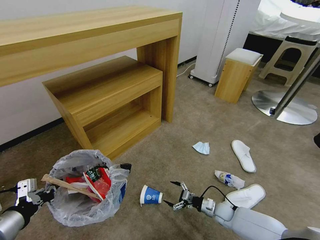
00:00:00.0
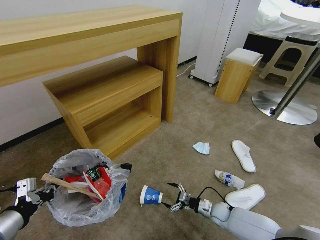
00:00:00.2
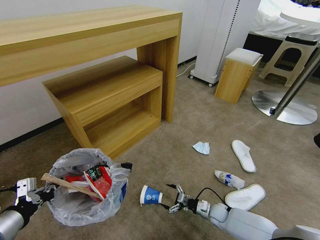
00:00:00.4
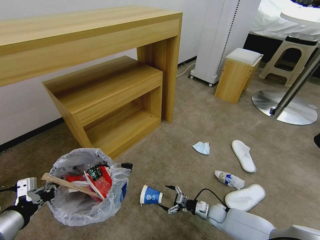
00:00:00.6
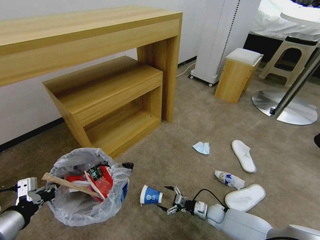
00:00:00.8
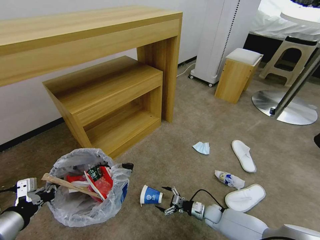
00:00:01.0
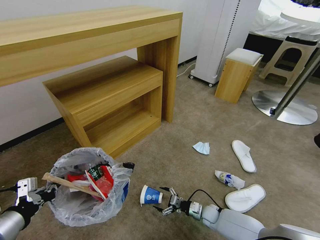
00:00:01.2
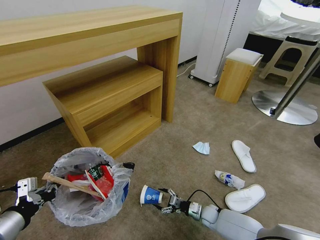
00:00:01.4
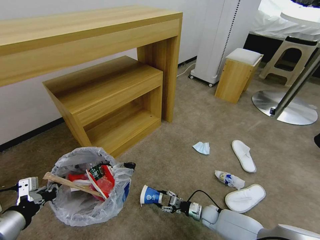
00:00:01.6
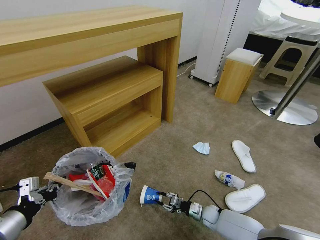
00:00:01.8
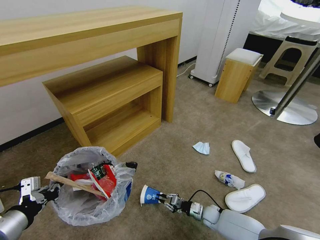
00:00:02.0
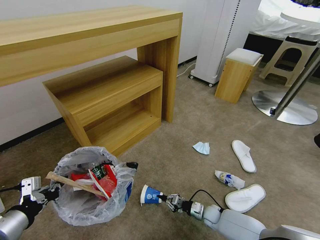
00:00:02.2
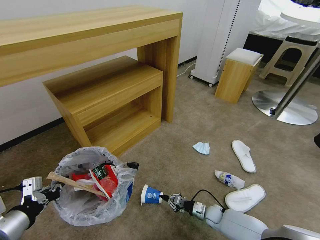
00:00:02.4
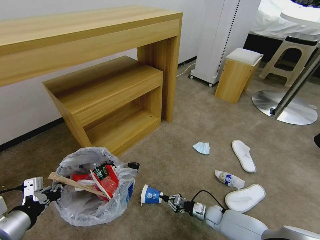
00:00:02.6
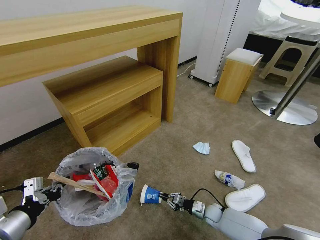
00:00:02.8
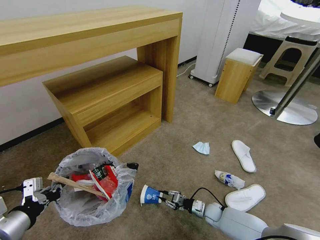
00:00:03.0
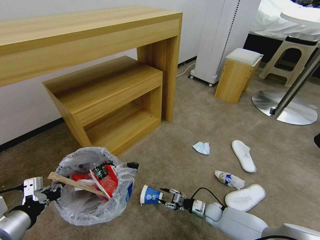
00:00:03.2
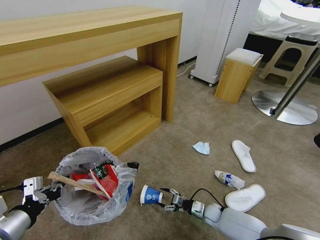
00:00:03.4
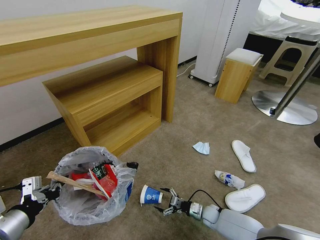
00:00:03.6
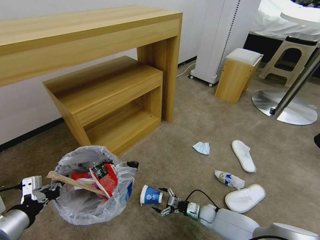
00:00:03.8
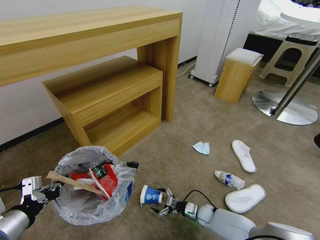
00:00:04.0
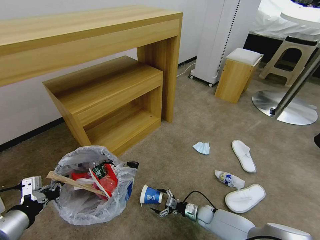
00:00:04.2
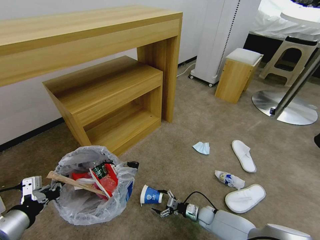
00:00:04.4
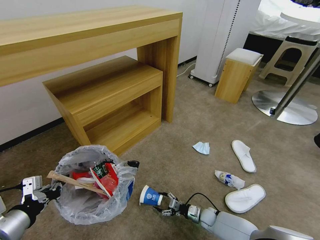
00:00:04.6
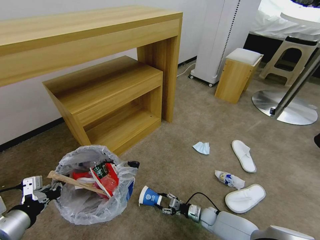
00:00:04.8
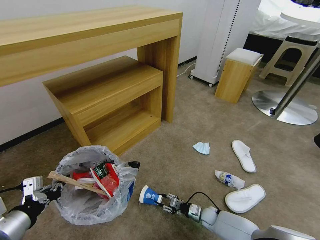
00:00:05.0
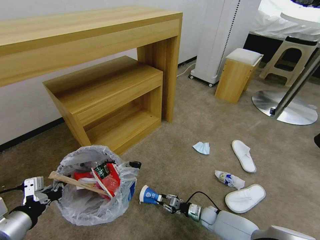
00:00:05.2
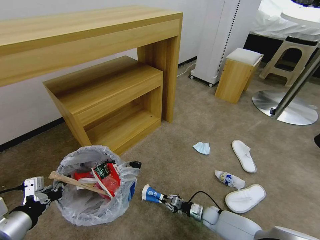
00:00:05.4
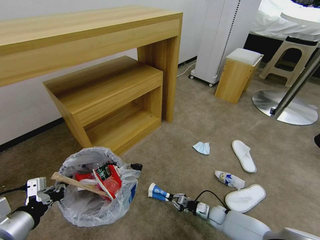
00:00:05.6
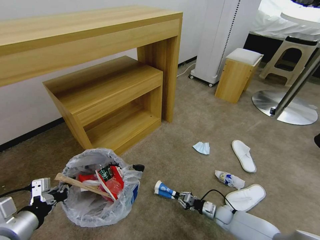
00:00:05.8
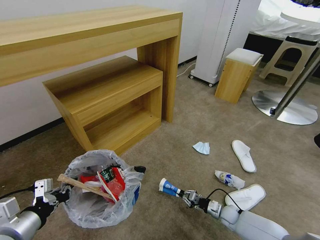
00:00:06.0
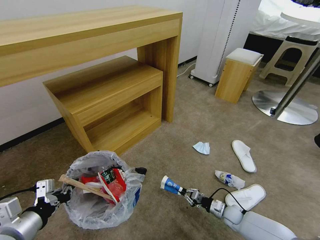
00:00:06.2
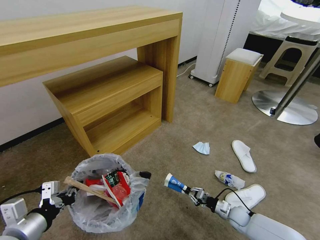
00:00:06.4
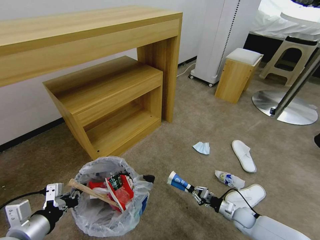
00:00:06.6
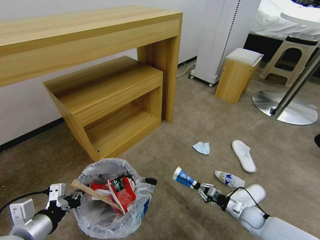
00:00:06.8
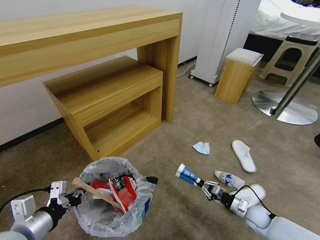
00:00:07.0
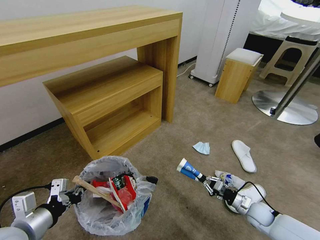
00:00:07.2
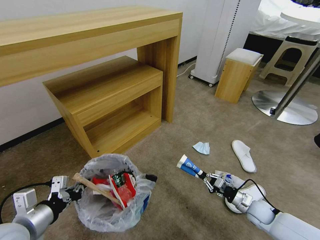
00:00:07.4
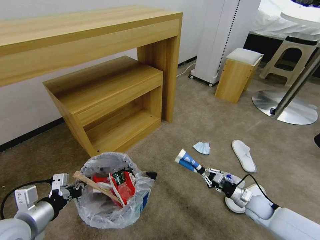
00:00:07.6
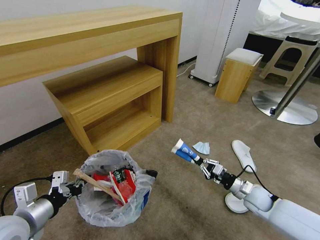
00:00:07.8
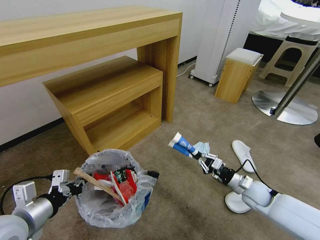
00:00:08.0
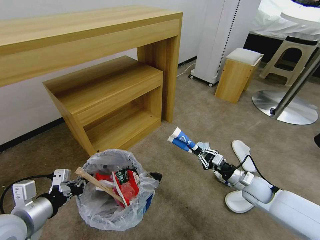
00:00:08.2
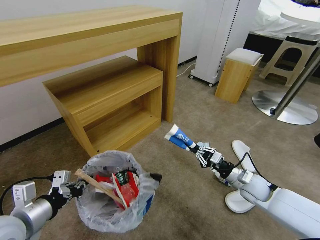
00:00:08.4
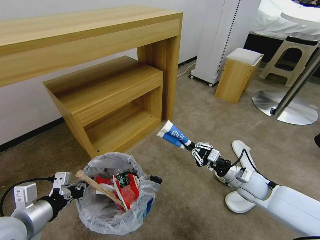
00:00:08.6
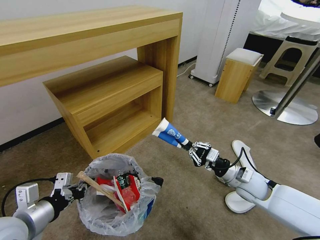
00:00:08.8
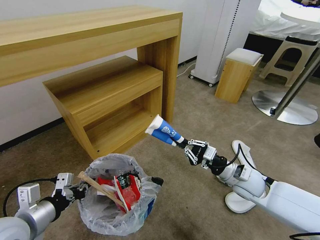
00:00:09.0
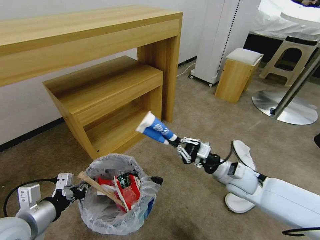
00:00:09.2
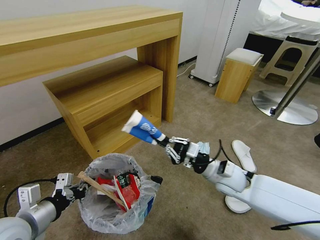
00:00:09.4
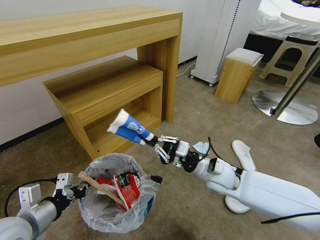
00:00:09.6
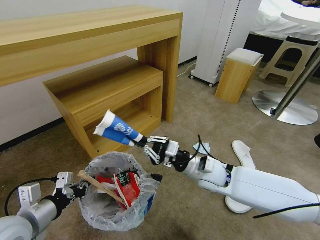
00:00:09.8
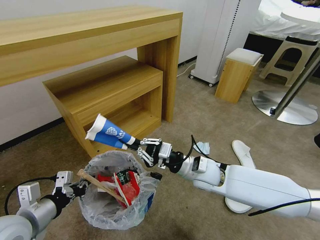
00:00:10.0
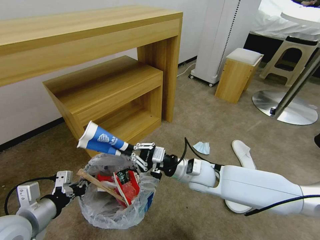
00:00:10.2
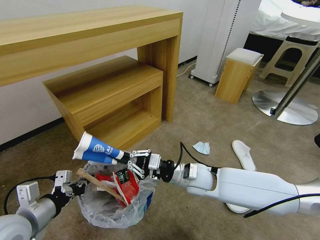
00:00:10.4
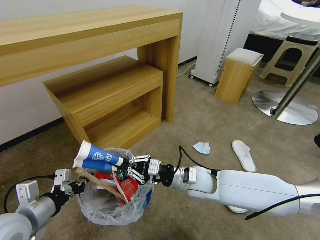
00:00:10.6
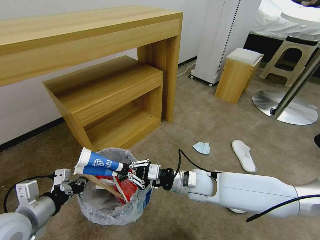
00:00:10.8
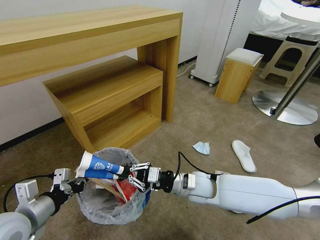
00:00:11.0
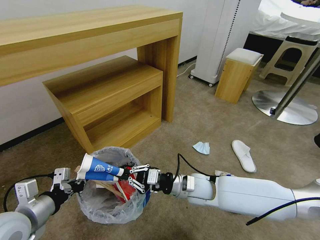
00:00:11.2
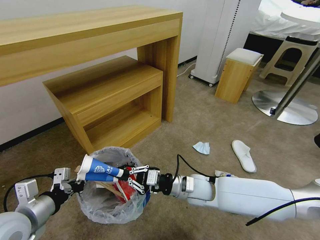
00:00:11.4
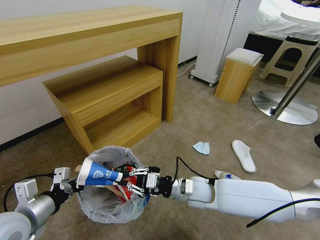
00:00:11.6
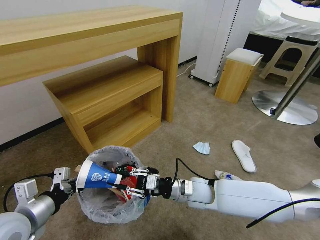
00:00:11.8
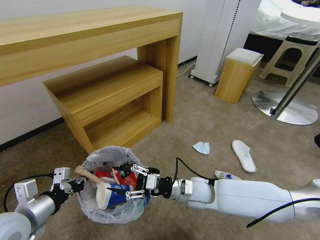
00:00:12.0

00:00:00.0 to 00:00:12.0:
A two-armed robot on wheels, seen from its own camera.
Task of the whole recording: Pick up the trash bin and place the garbage on the floor into it.
00:00:00.0 to 00:00:01.6: The right gripper shifts some 5 cm to the left, and closes.
00:00:01.6 to 00:00:03.0: The grippers stay close to where they were, moving slightly.
00:00:03.0 to 00:00:04.4: The right gripper opens its fingers.
00:00:04.4 to 00:00:06.0: The right gripper shifts some 10 cm to the right, and closes up.
00:00:06.0 to 00:00:07.6: The right gripper shifts roughly 15 cm upward and to the right.
00:00:07.6 to 00:00:09.0: The right gripper is displaced upward and to the left by approximately 20 cm.
00:00:09.0 to 00:00:10.4: The right gripper travels to the left by approximately 15 cm.
00:00:10.4 to 00:00:12.0: The right gripper goes roughly 5 cm downward, and opens up.

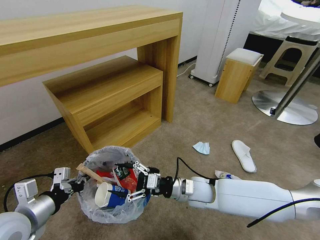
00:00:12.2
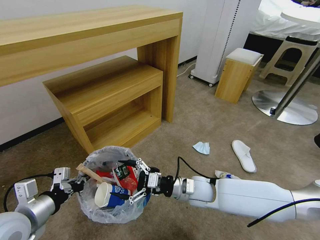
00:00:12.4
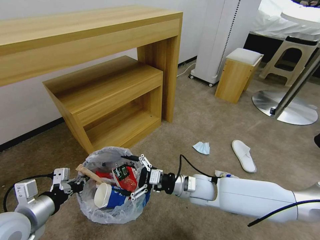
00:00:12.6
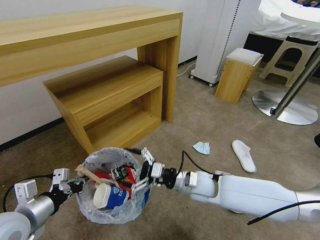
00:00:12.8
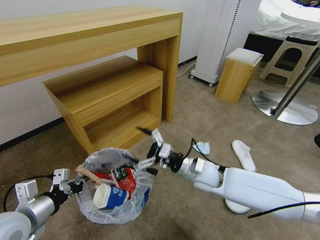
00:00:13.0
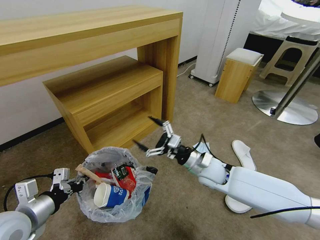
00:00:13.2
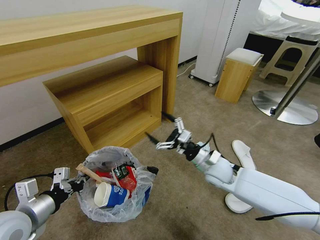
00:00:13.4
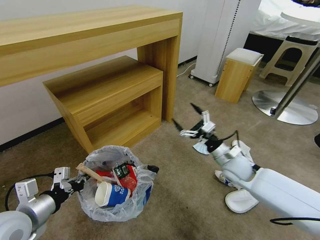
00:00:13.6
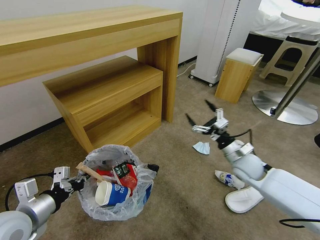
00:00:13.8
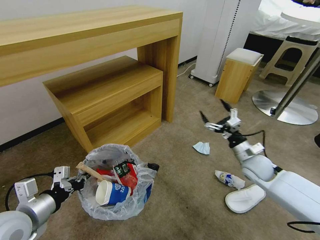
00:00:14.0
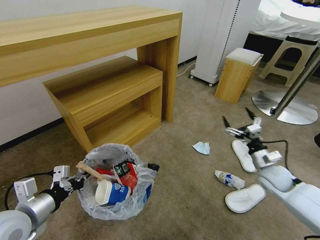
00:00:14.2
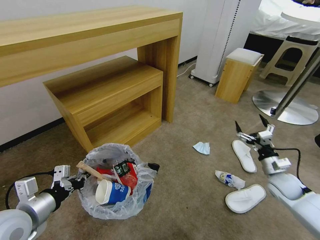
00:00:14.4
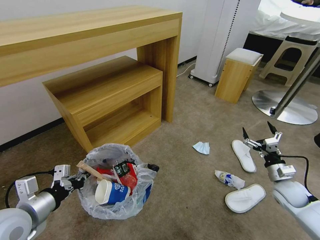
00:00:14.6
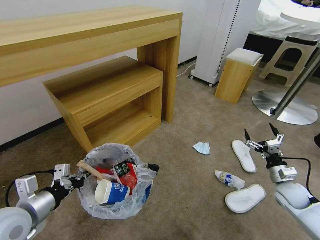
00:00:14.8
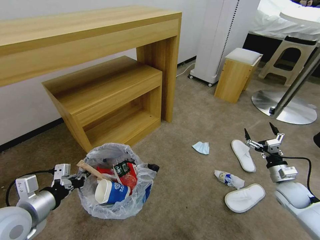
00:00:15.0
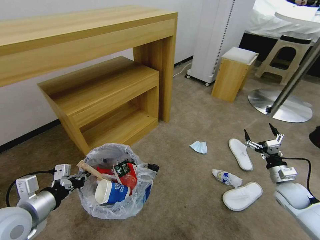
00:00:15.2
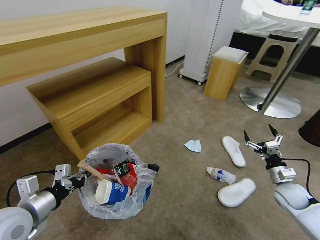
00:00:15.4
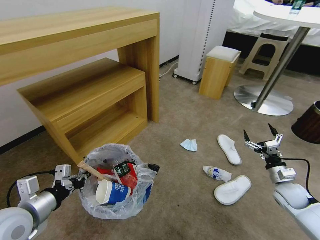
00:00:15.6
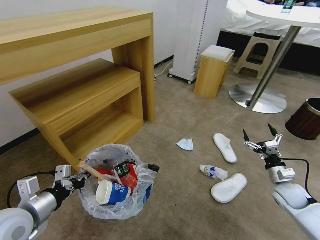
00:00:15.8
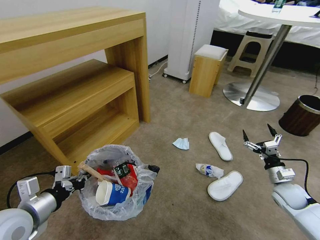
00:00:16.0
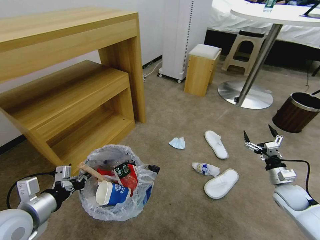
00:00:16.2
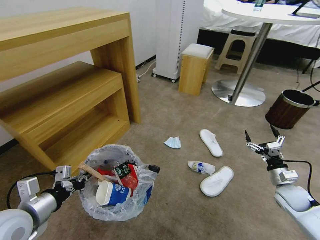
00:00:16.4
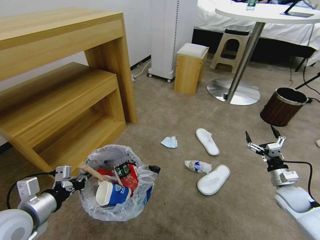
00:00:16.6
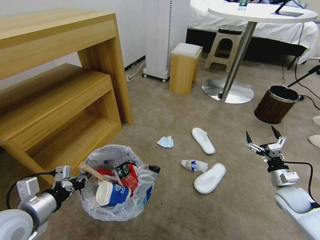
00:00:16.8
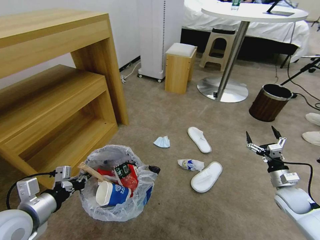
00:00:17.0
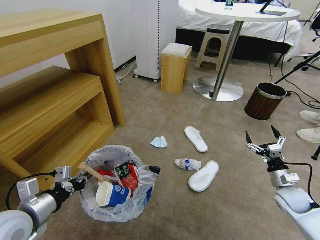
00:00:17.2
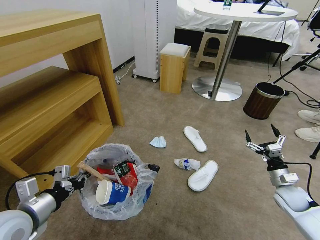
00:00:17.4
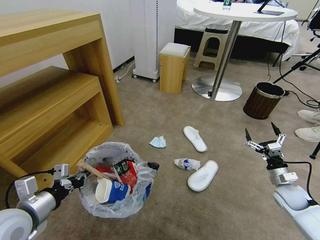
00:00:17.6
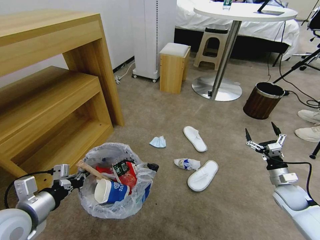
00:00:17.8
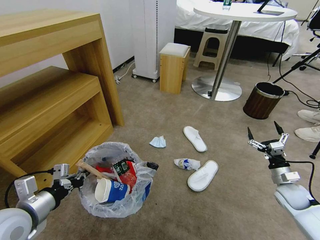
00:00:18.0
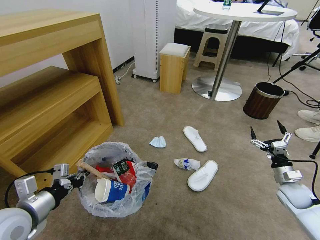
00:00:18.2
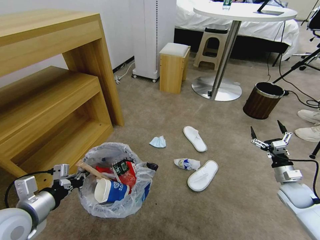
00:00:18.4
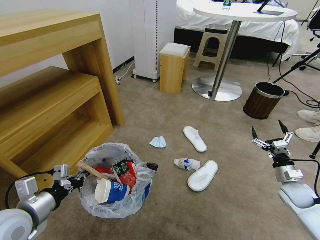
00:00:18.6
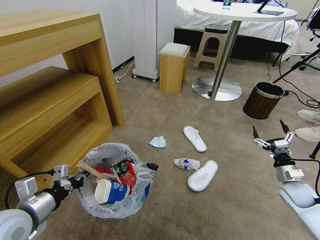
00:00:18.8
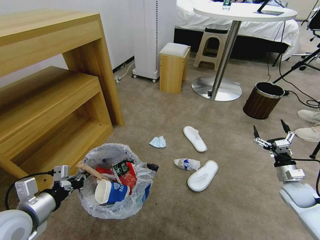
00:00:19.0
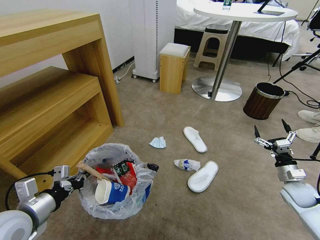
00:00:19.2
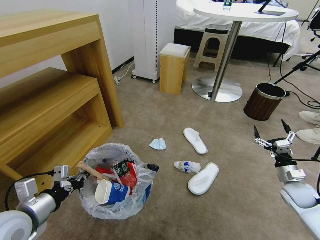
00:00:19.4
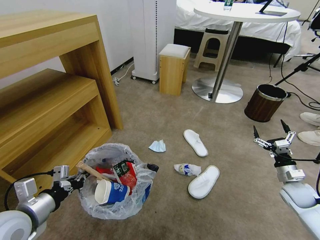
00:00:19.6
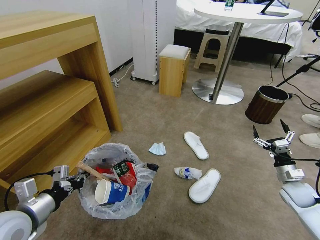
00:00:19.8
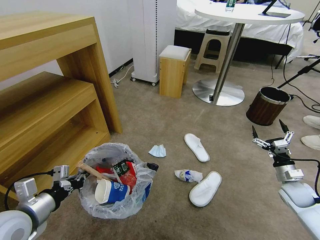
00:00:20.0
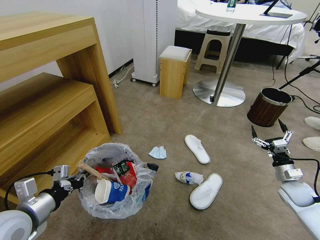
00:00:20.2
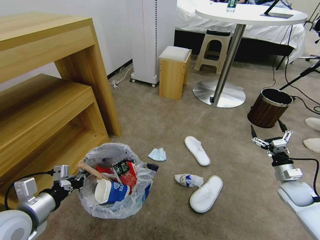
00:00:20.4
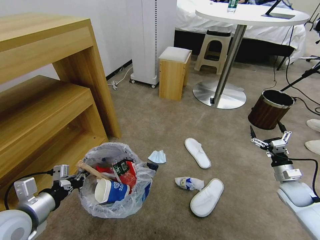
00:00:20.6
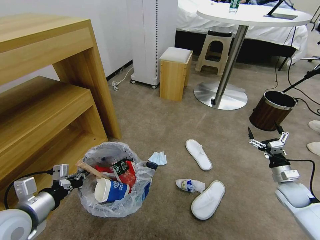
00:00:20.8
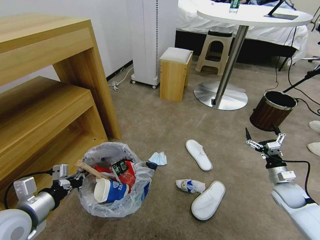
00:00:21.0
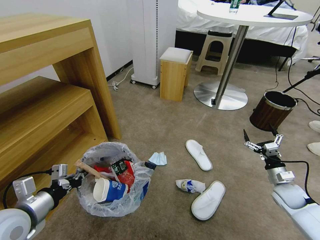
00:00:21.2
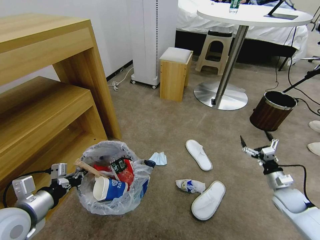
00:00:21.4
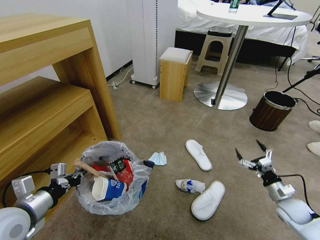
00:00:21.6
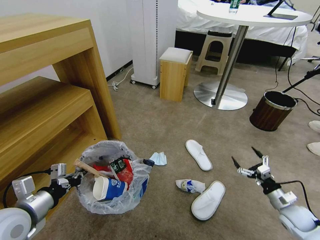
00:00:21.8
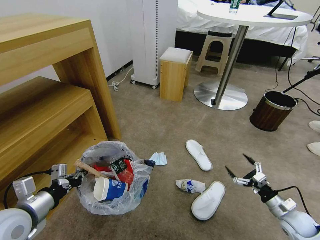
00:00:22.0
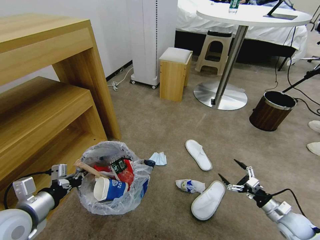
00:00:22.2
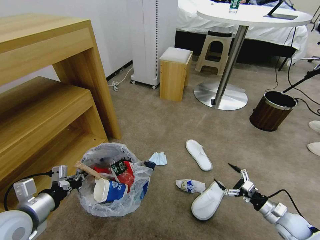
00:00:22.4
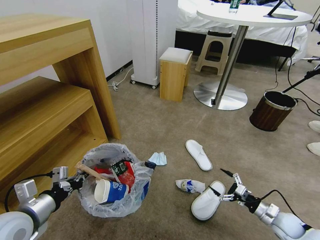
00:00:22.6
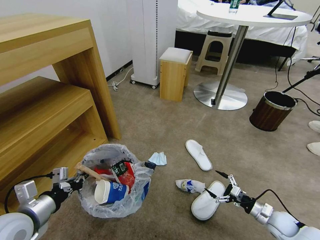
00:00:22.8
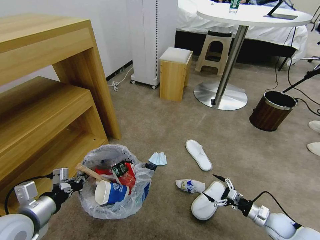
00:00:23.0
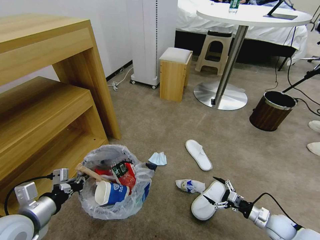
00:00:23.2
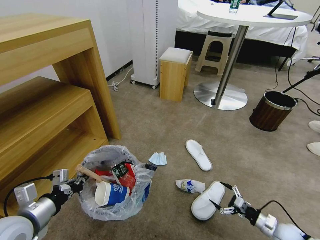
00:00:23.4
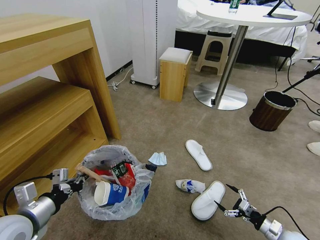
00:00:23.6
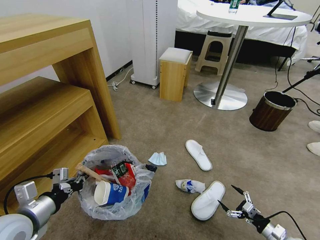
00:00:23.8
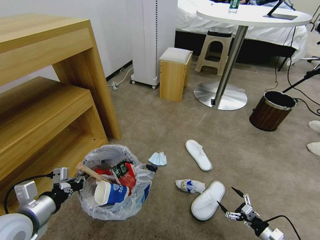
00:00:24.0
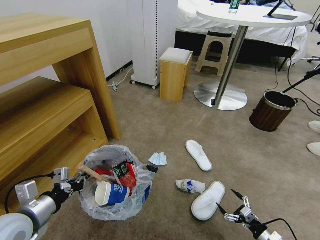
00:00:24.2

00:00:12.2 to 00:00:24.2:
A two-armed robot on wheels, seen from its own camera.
Task of the whole recording: Pick up the trash bin and place the garbage on the floor into it.
00:00:12.2 to 00:00:13.8: The right gripper moves to the right, approximately 20 cm.
00:00:13.8 to 00:00:15.2: The right gripper shifts some 20 cm to the right, downward and backward.
00:00:21.2 to 00:00:22.6: The right gripper is displaced backward and downward by about 10 cm.
00:00:22.6 to 00:00:24.2: The right gripper moves backward and downward, roughly 10 cm.
